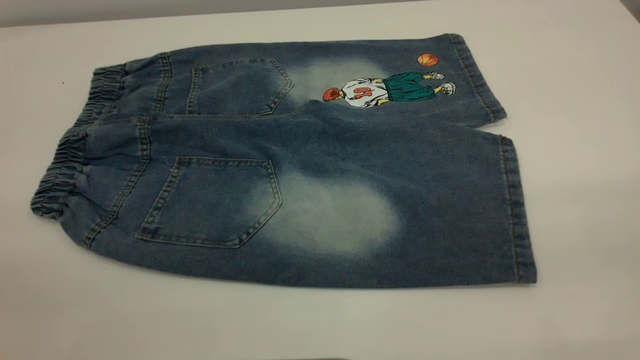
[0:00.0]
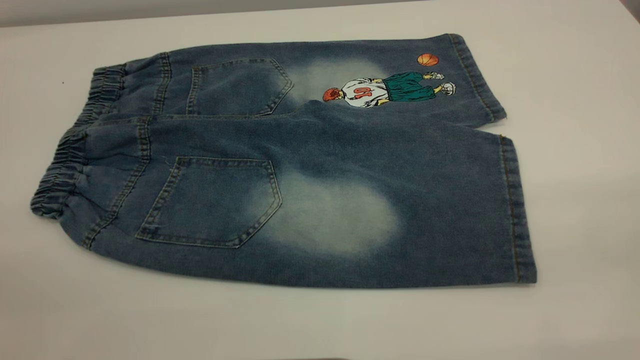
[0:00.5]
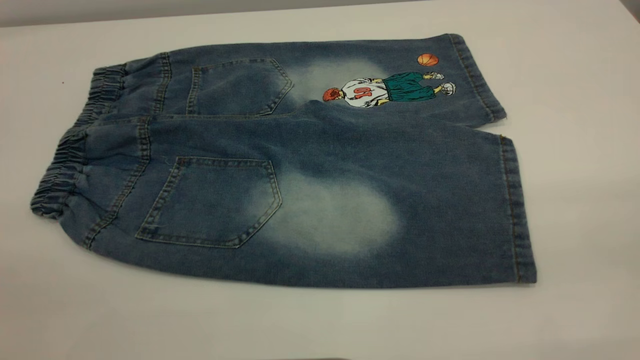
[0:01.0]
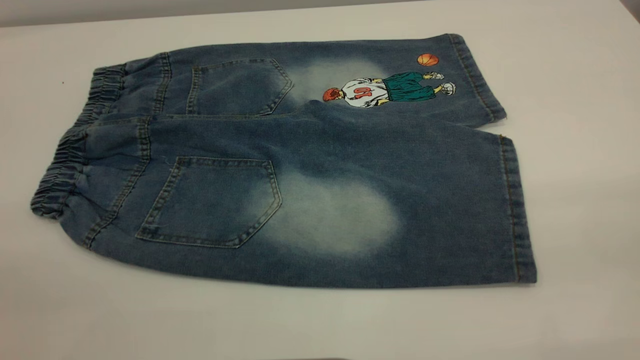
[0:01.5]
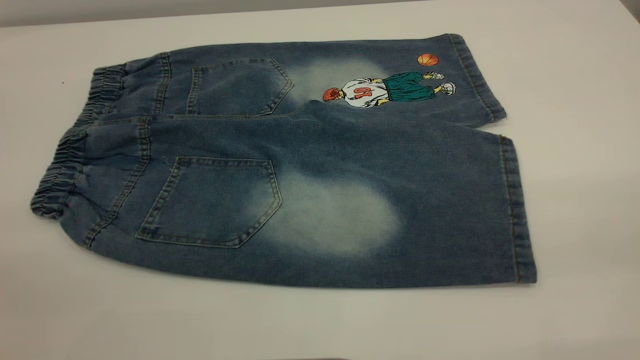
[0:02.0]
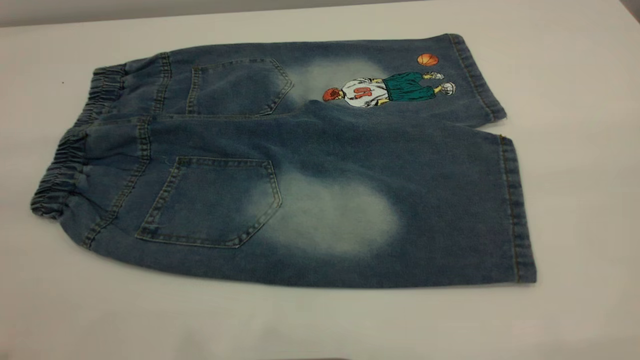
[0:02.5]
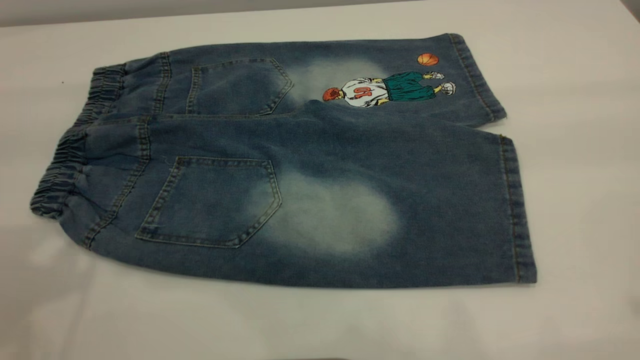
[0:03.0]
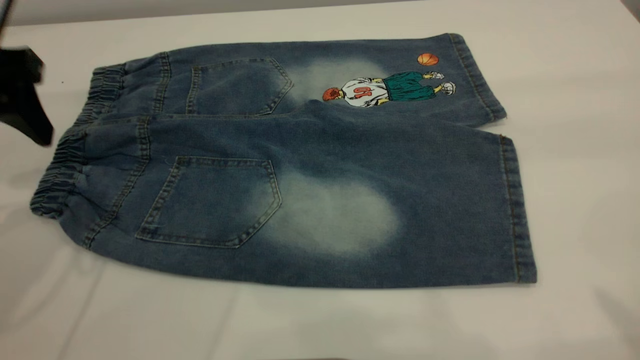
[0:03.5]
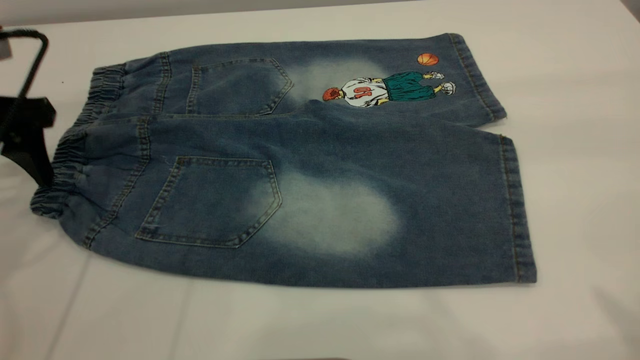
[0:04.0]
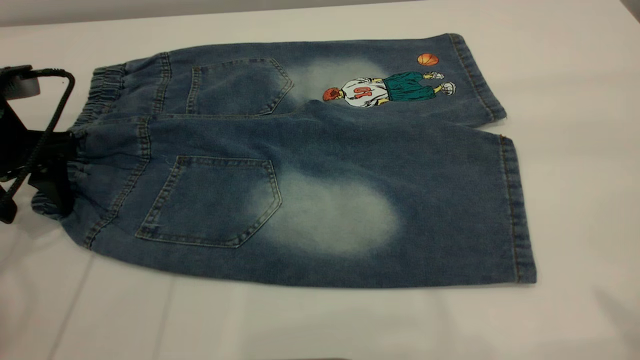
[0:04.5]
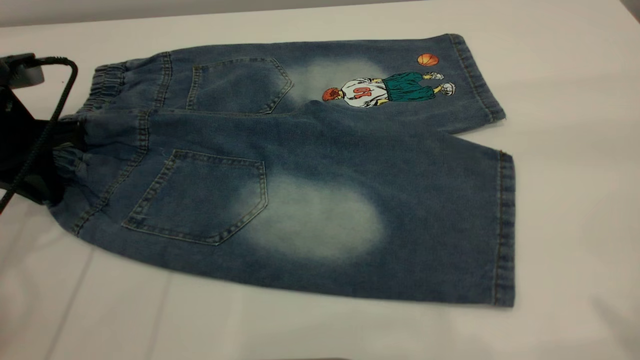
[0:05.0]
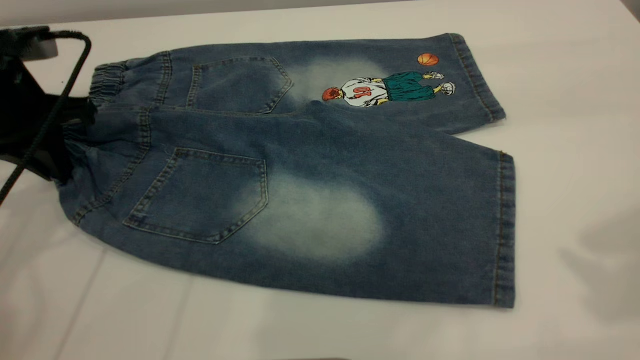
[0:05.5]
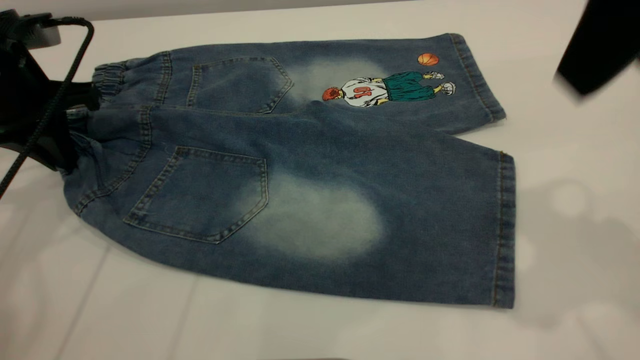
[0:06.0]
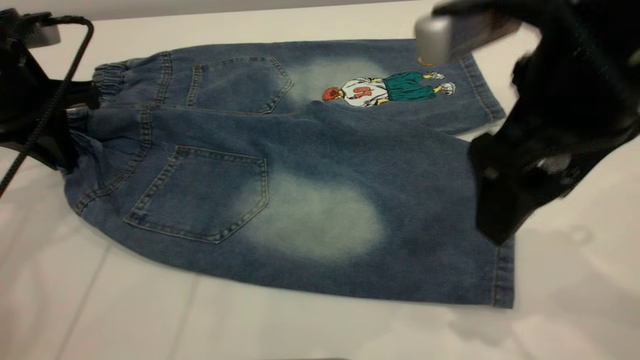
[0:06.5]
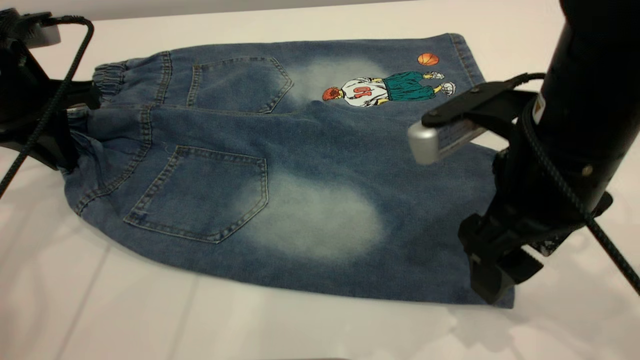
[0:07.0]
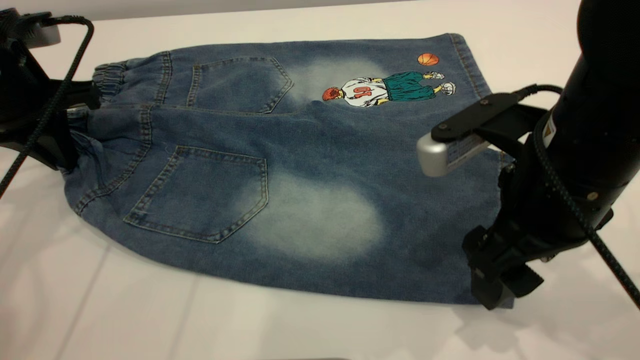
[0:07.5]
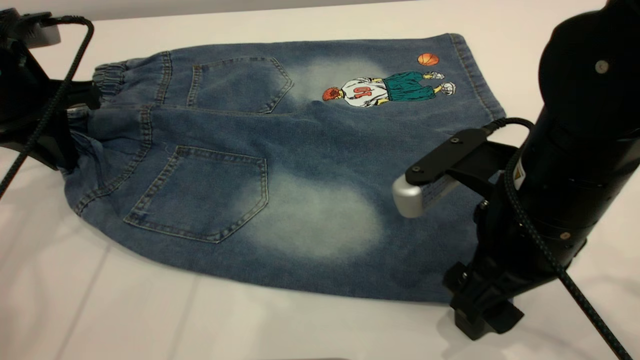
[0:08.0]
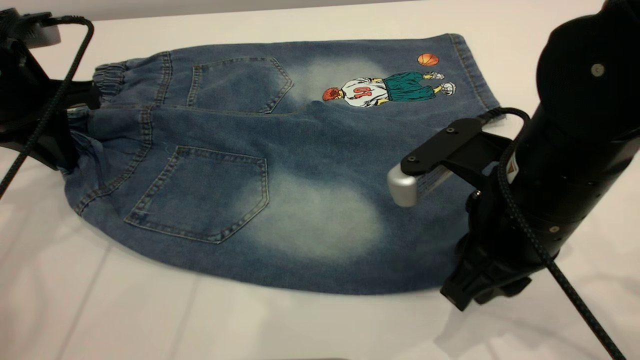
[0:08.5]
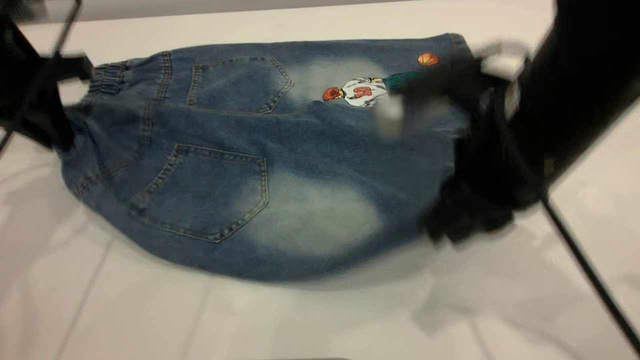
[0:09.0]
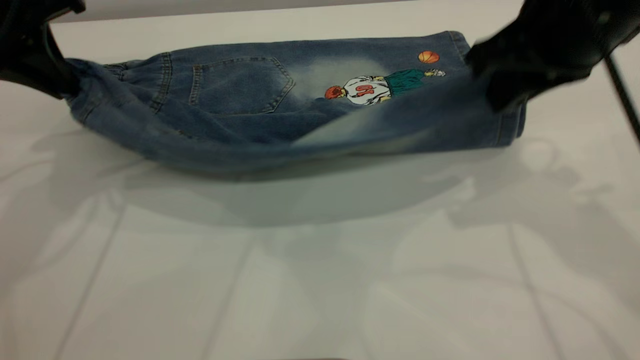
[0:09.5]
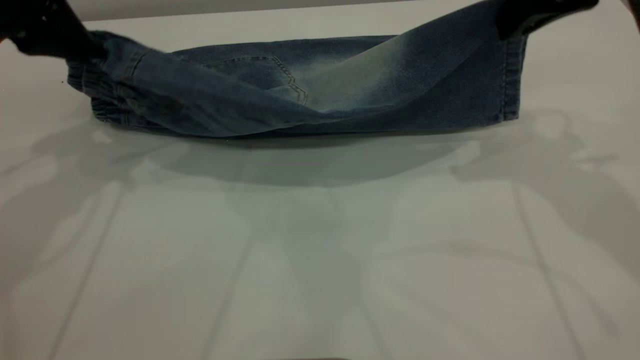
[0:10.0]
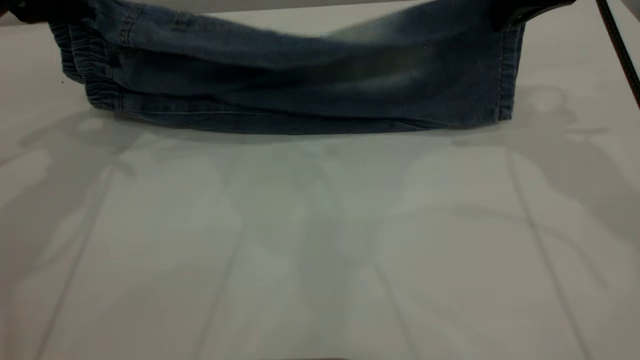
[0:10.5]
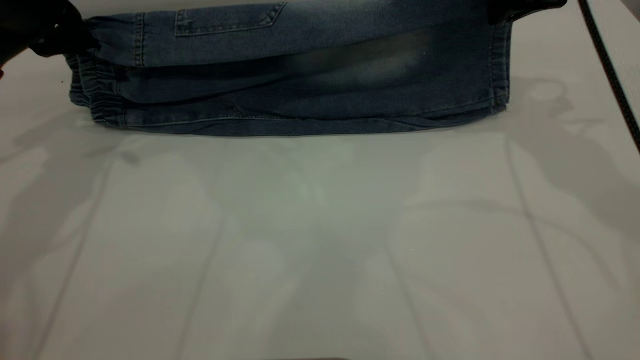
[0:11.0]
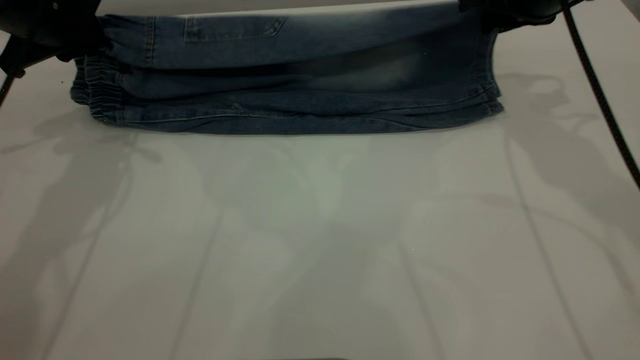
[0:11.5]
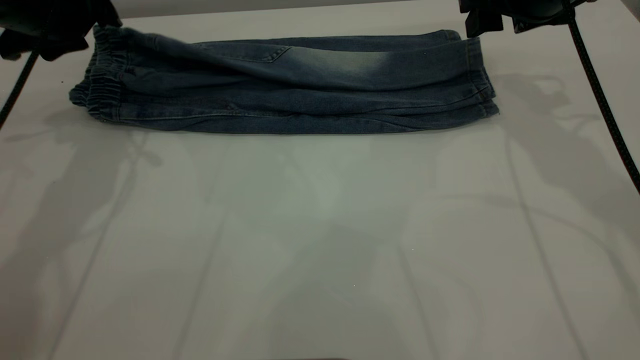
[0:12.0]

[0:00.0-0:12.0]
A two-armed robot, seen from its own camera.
0:00.0 to 0:02.0: The two grippers keep their place.
0:02.0 to 0:04.0: The left gripper travels forward and downward by about 35 cm.
0:04.0 to 0:06.0: The left gripper closes. The right gripper is displaced forward, to the left and downward by approximately 15 cm.
0:06.0 to 0:08.0: The right gripper goes some 20 cm downward.
0:08.0 to 0:10.0: The right gripper goes about 20 cm forward, upward and to the right, and closes its fingers, while the left gripper heads upward, covering about 10 cm.
0:10.0 to 0:12.0: The left gripper heads downward, covering approximately 5 cm, and opens up. The right gripper is displaced forward and downward by some 10 cm, and opens its fingers.

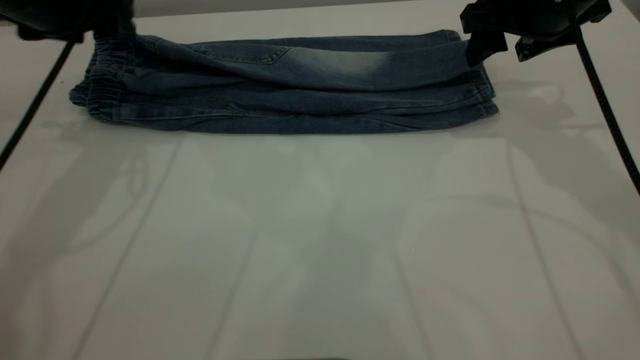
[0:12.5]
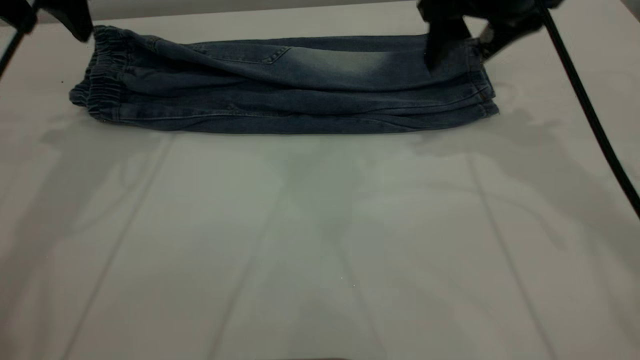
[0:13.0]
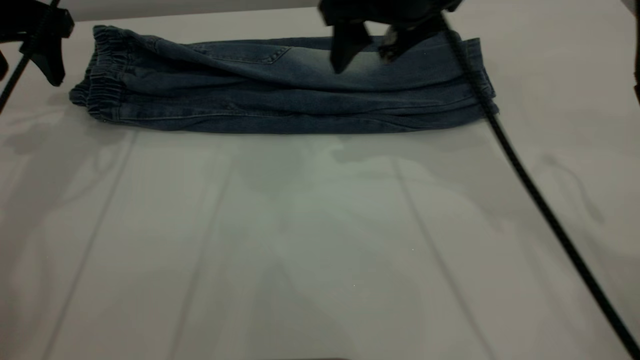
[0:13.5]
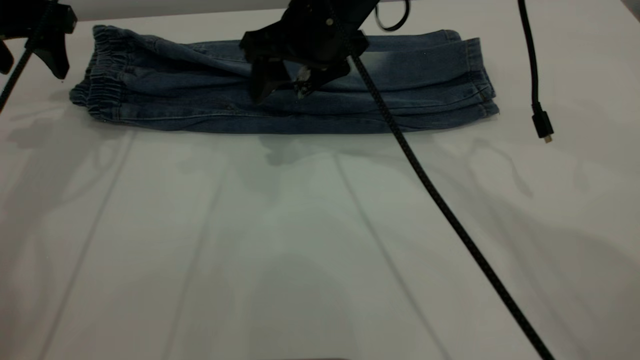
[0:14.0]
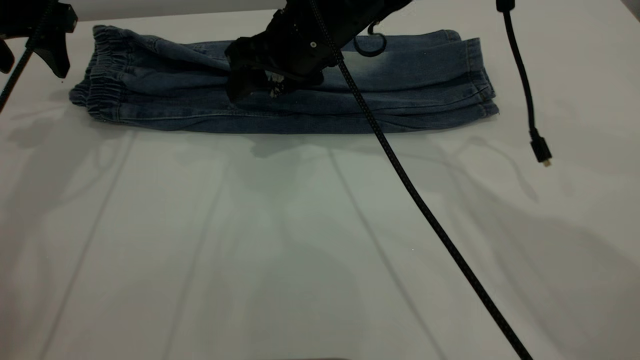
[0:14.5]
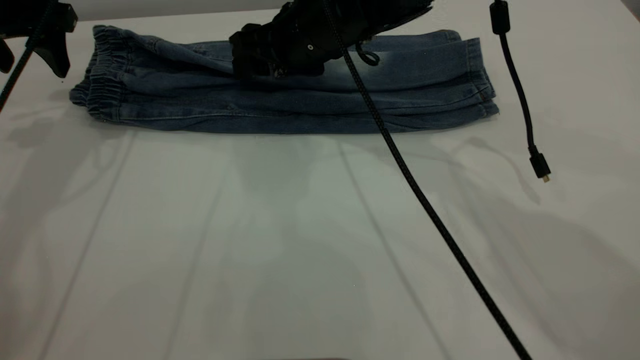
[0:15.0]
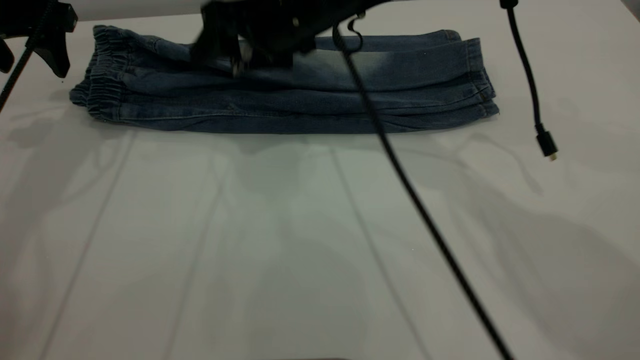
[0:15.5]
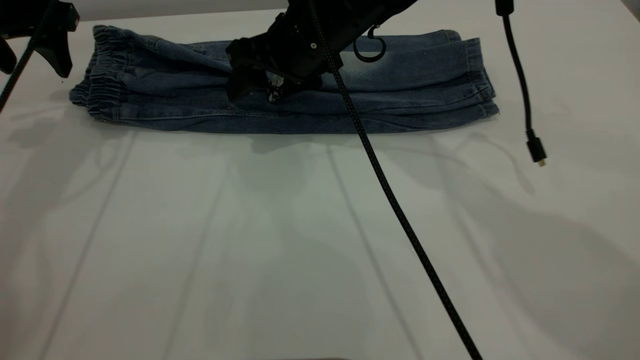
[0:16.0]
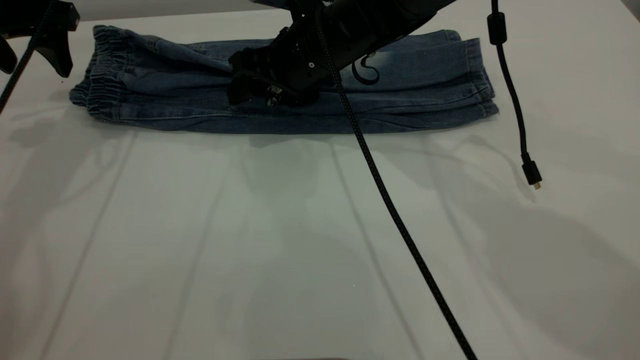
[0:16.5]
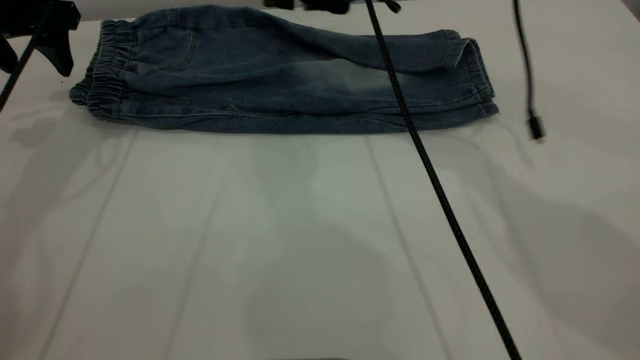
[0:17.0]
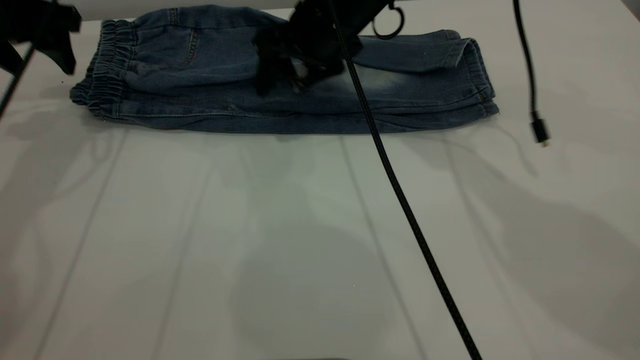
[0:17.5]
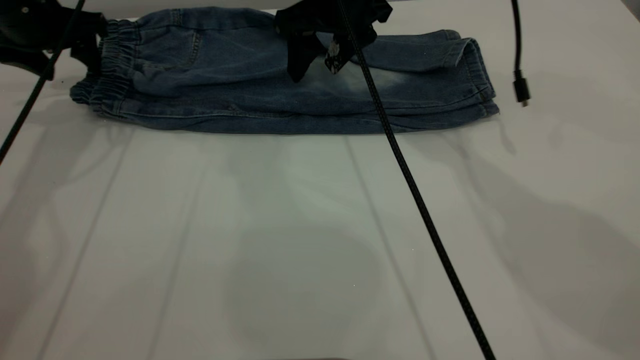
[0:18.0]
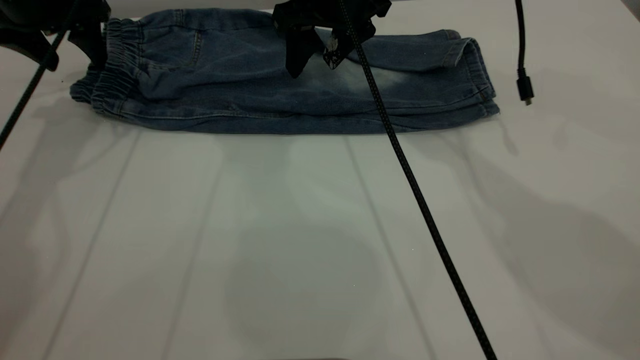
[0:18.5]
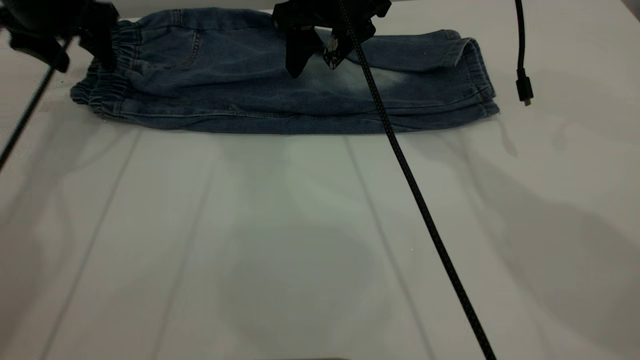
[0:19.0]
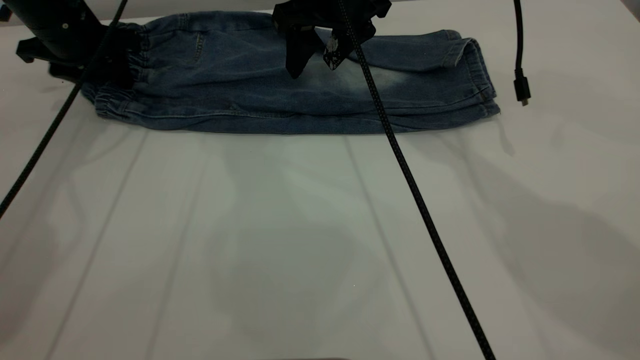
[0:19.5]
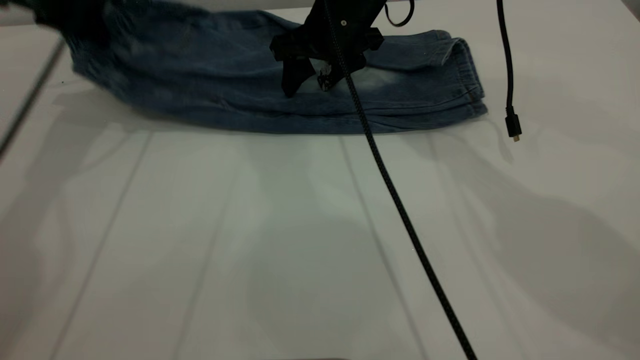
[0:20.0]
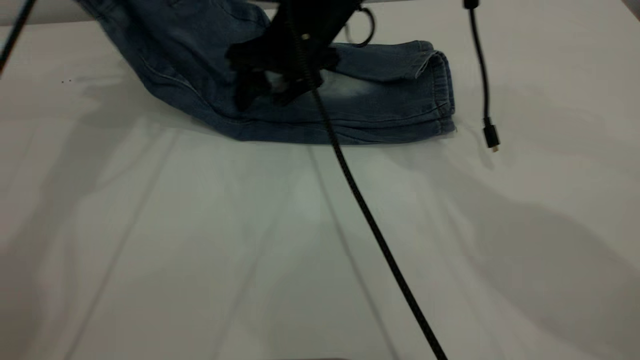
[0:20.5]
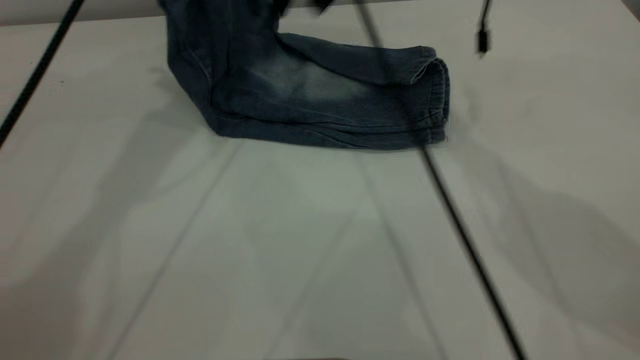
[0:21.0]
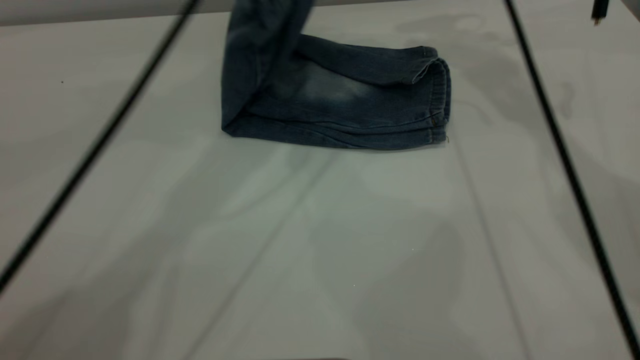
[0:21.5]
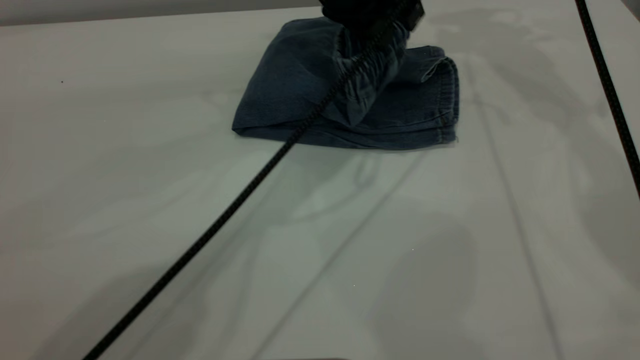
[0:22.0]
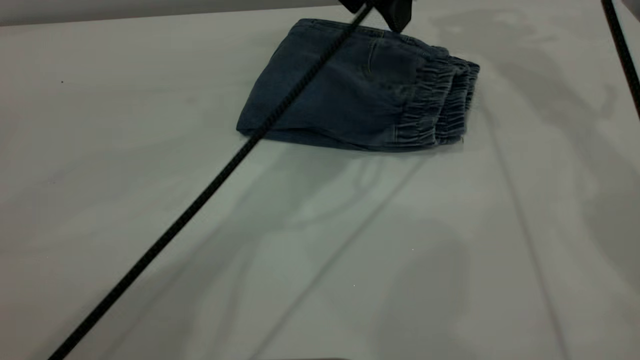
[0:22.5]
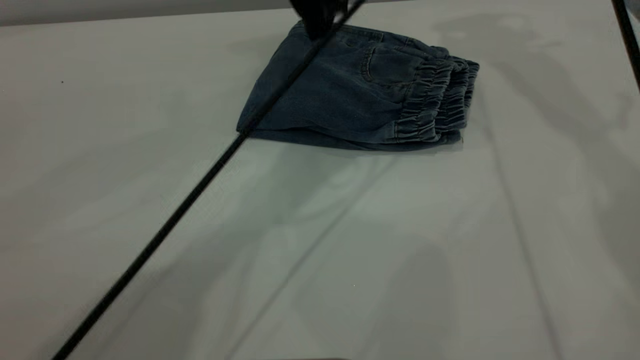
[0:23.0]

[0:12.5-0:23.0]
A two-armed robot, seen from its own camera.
Step, 0:13.5 to 0:22.5: Fold the pants from left to right.
0:12.5 to 0:14.5: The left gripper ends up some 5 cm from where it was, while the right gripper moves to the left, roughly 20 cm.
0:14.5 to 0:16.5: The grippers stay close to where they were, moving slightly.
0:16.5 to 0:19.0: The right gripper goes about 5 cm upward. The left gripper shifts about 5 cm forward.
0:19.0 to 0:21.0: The right gripper moves upward, approximately 5 cm. The left gripper is displaced to the right and upward by about 20 cm, and closes its fingers.
0:21.0 to 0:23.0: The left gripper moves to the right and downward, roughly 15 cm, and opens, while the right gripper is displaced to the right and upward by about 20 cm.
